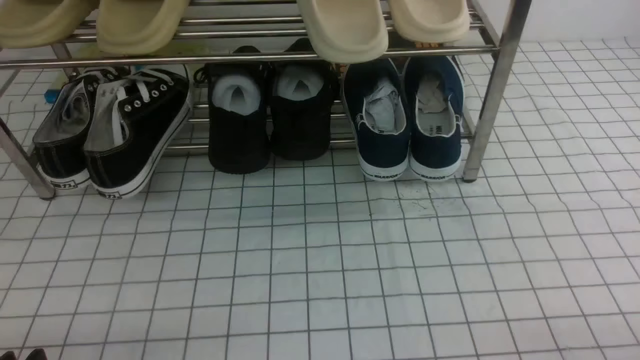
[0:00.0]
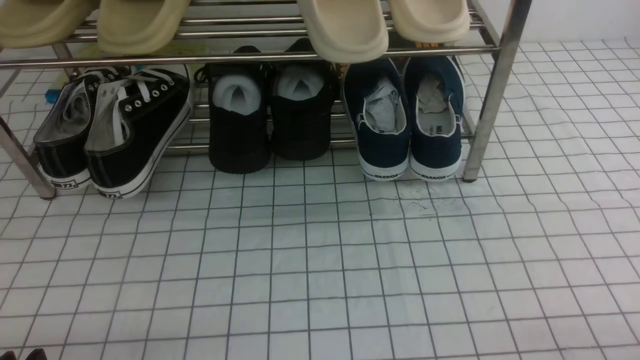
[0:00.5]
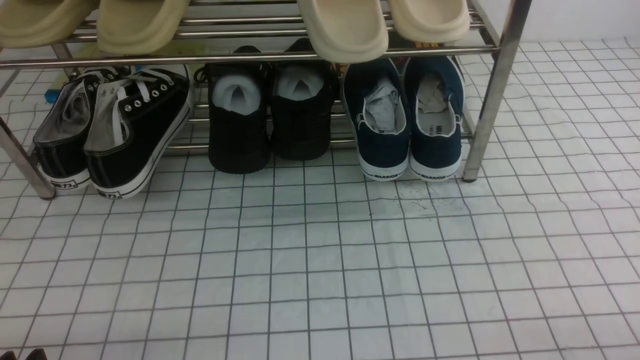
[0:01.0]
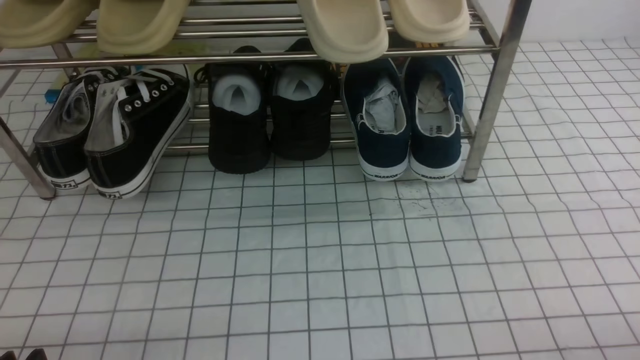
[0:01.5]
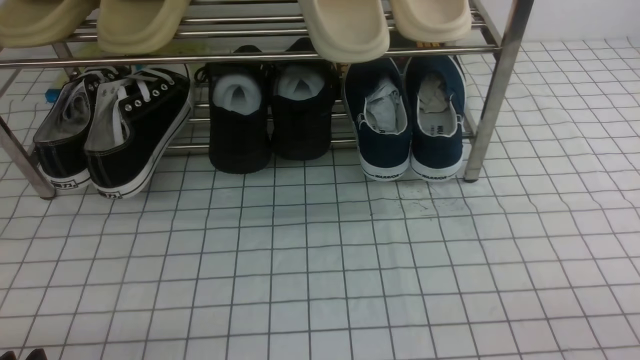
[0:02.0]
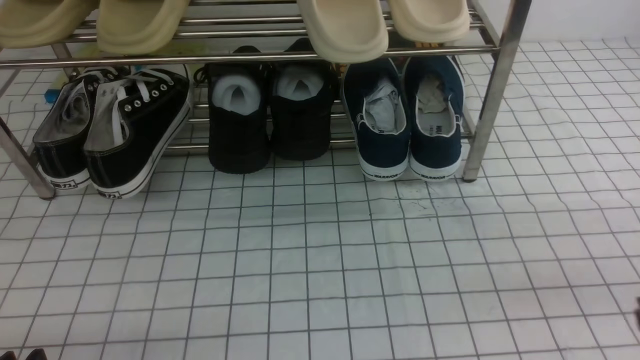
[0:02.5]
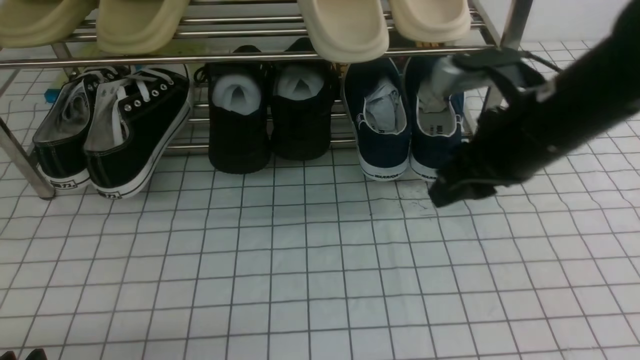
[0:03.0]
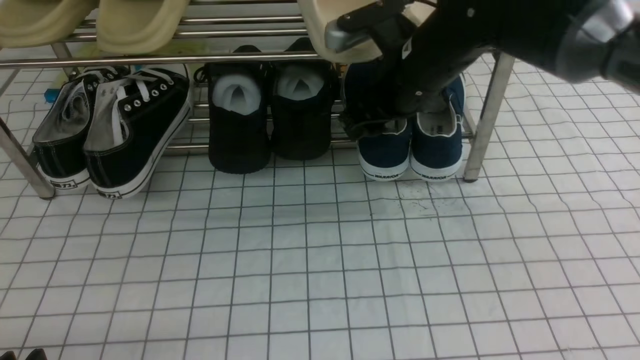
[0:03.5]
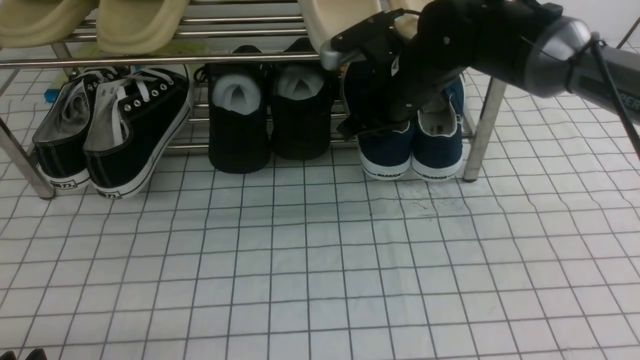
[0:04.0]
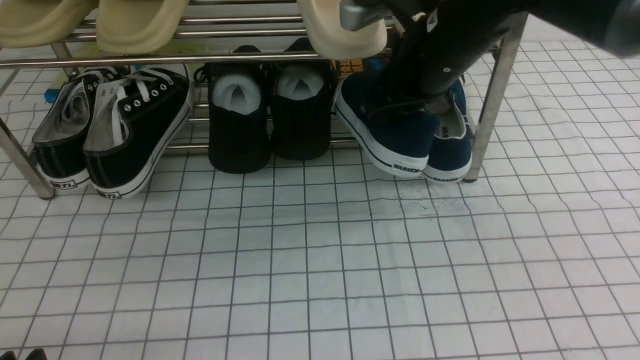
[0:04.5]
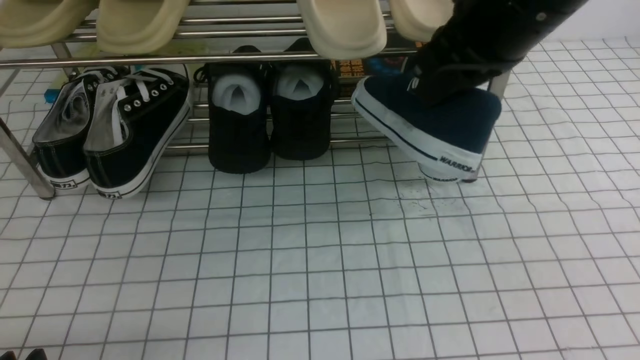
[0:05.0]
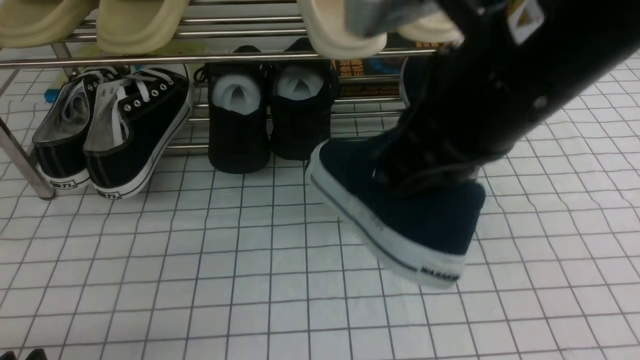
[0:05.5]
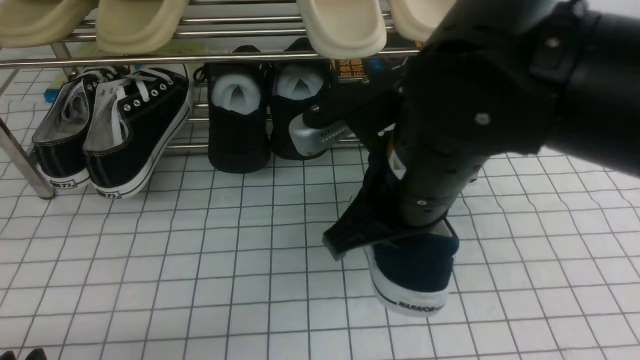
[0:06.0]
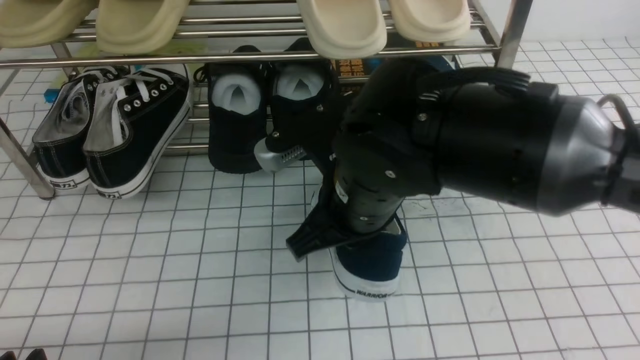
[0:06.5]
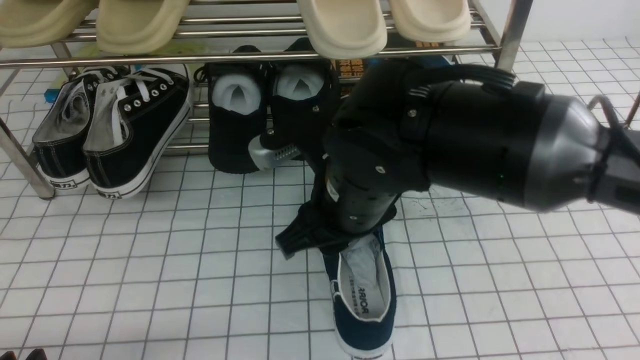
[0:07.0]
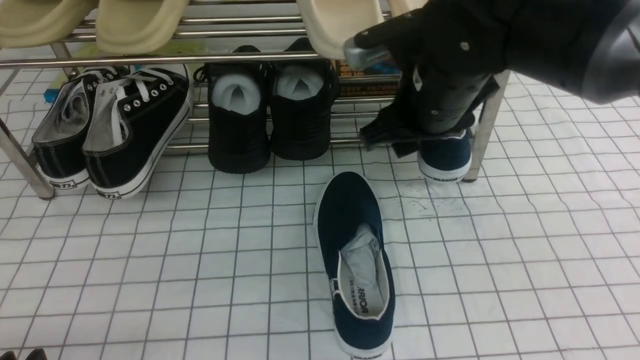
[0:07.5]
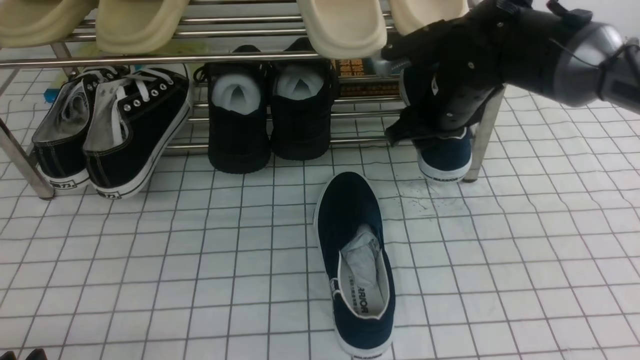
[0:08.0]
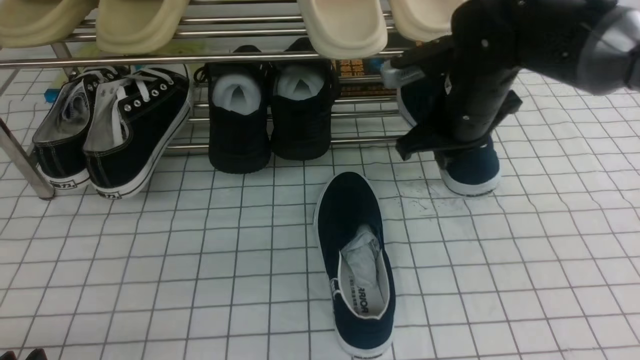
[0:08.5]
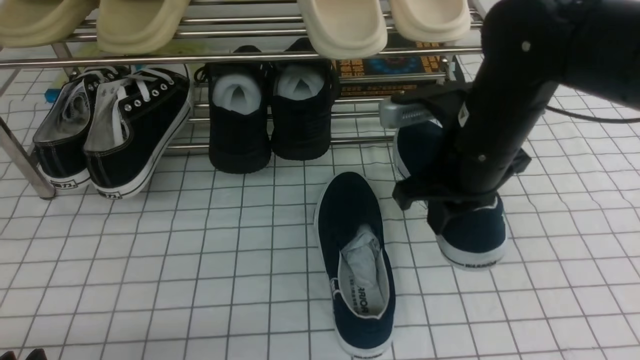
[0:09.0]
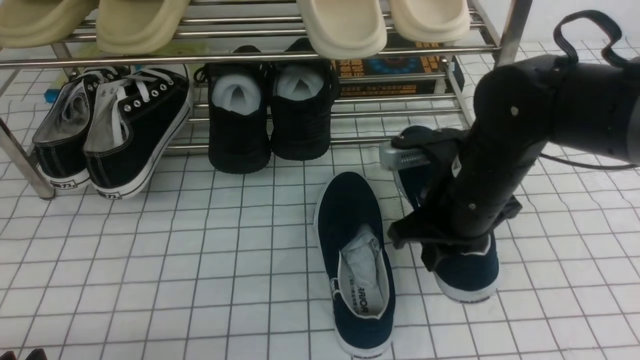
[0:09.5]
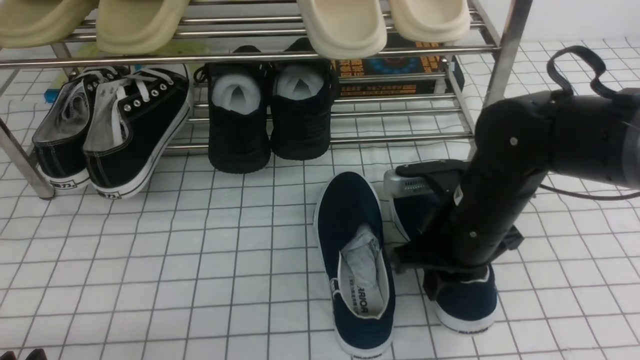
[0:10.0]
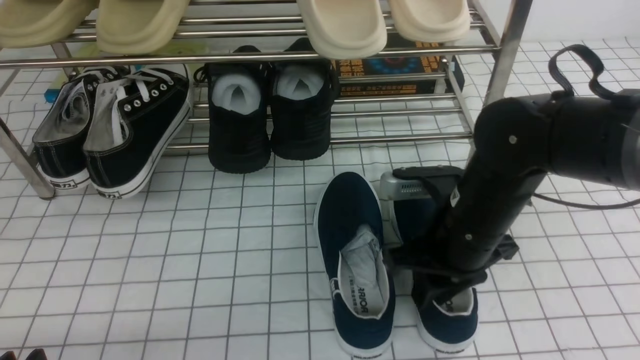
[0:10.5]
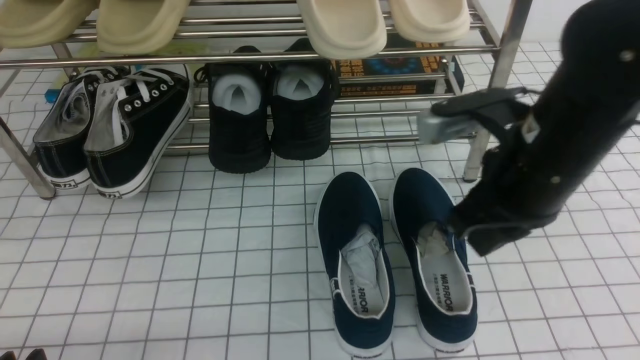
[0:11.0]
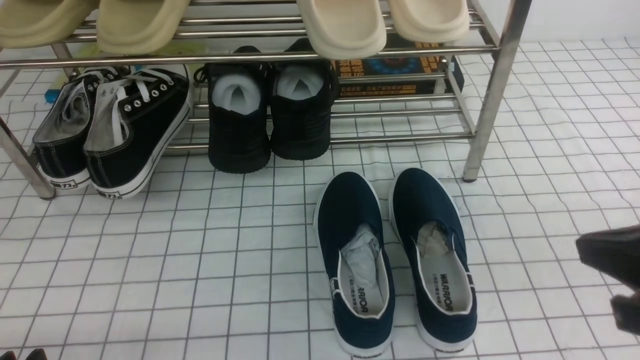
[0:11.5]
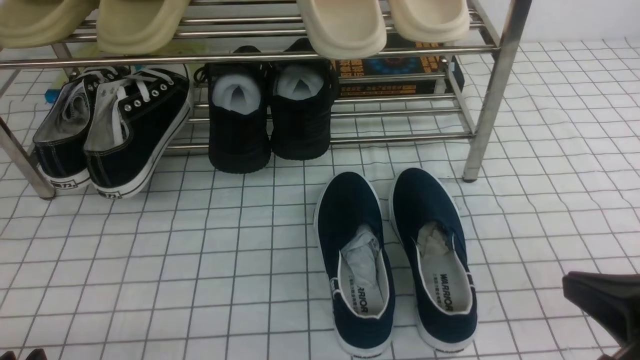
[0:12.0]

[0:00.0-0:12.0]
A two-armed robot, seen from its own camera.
Step, 0:00.0 to 0:03.5: use the right arm to clamp a shoe on the right side of the shoe rack.
Step, 0:04.0 to 0:07.0: use the right arm to take out the clamped shoe from the shoe rack and put it down.
Step, 0:07.5 to 0:08.0: use the right arm to clamp a shoe on the right side of the shoe rack.
Step, 0:08.5 to 0:10.5: use the right arm to take out the clamped shoe from the shoe rack and put it down.
0:02.0 to 0:04.0: The right gripper heads forward and to the left, covering approximately 40 cm, and closes, then reopens.
0:04.0 to 0:06.0: The right gripper shifts about 20 cm backward, and closes its fingers.
0:06.0 to 0:08.0: The right gripper heads forward, covering some 20 cm, and opens up.
0:08.0 to 0:10.0: The right gripper moves backward and downward, roughly 15 cm, and closes up.
0:10.0 to 0:12.0: The right gripper heads backward and to the right, covering roughly 20 cm, and opens, then closes once more.

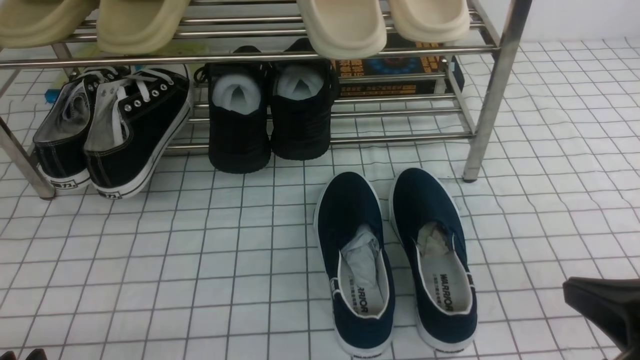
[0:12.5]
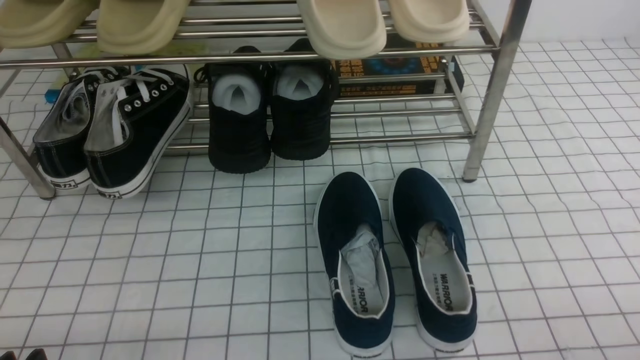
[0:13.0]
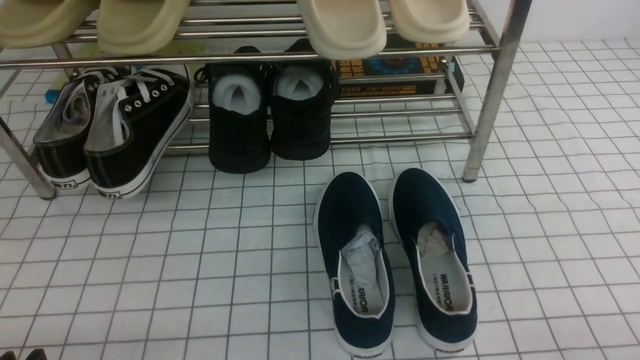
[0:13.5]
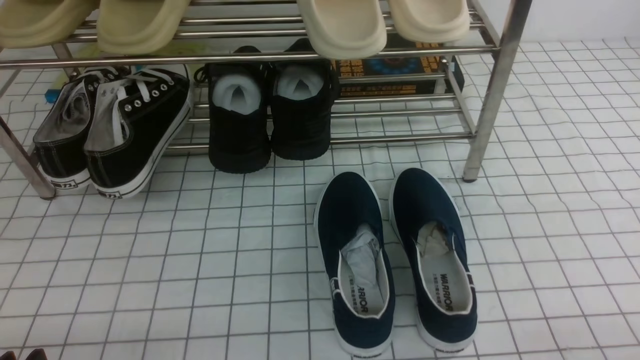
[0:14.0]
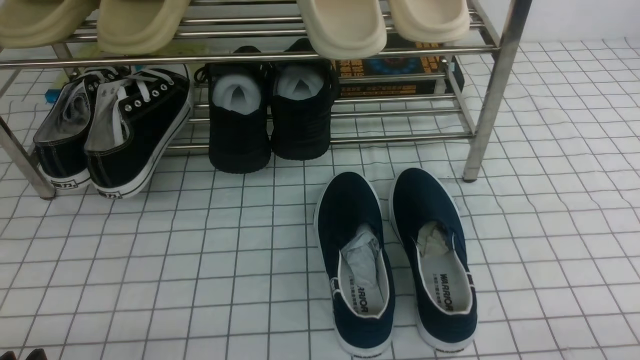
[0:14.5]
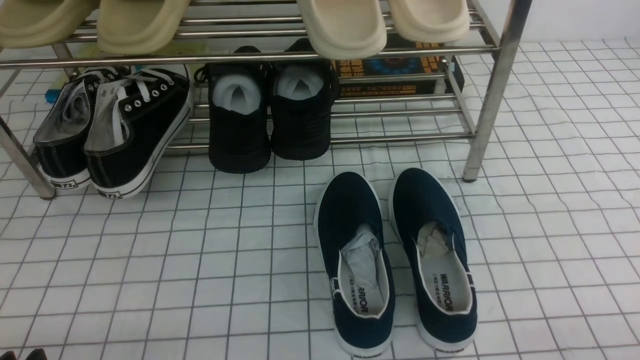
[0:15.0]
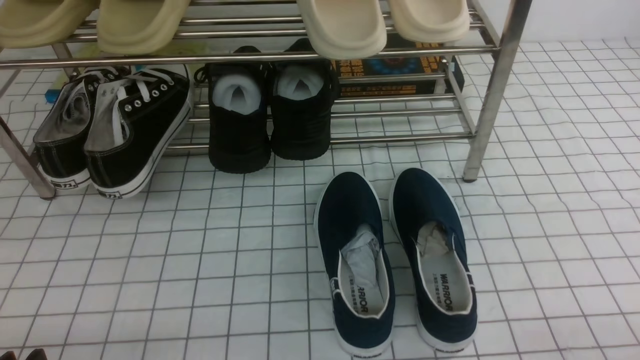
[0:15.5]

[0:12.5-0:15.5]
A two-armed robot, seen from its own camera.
0:12.5 to 0:14.0: The right gripper heads downward, to the right and backward, covering some 10 cm.
0:14.0 to 0:15.5: The two grippers keep their place.

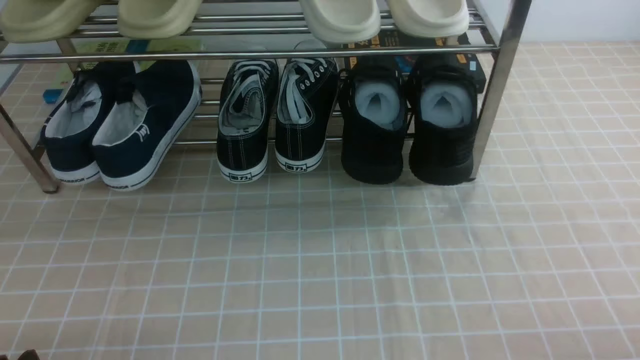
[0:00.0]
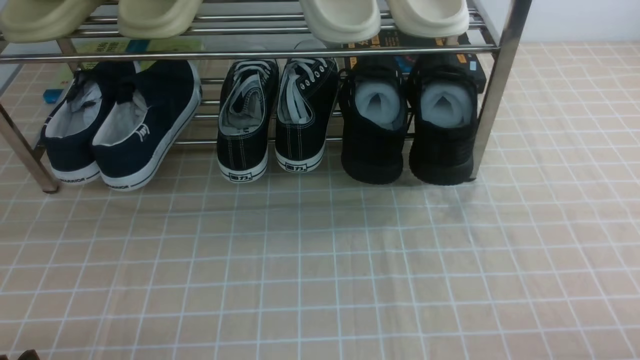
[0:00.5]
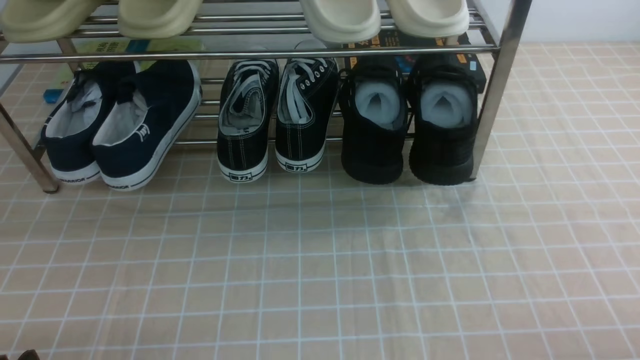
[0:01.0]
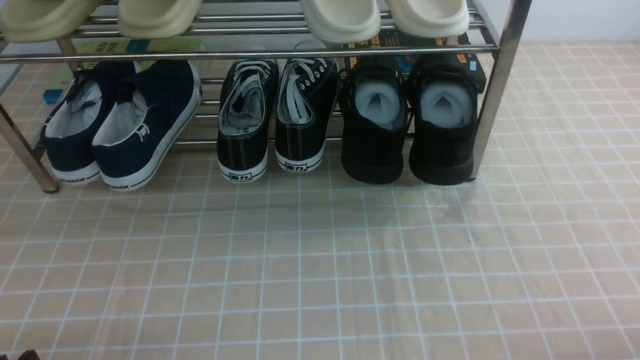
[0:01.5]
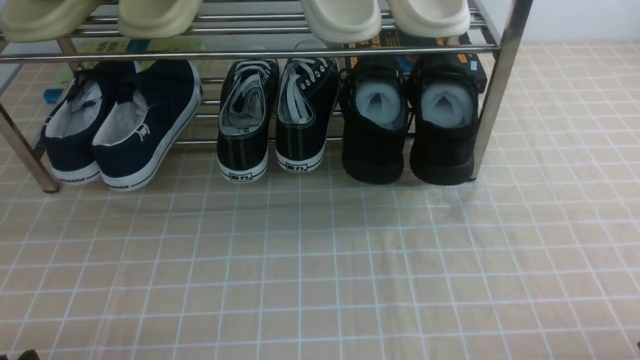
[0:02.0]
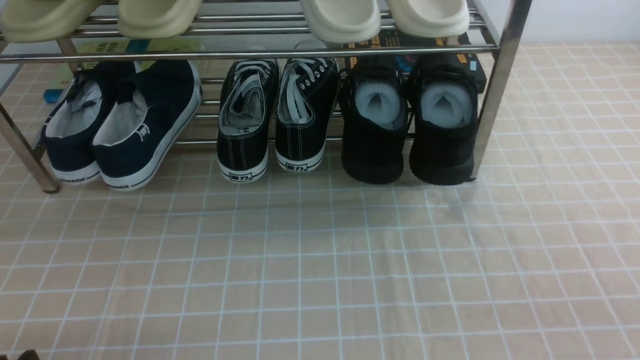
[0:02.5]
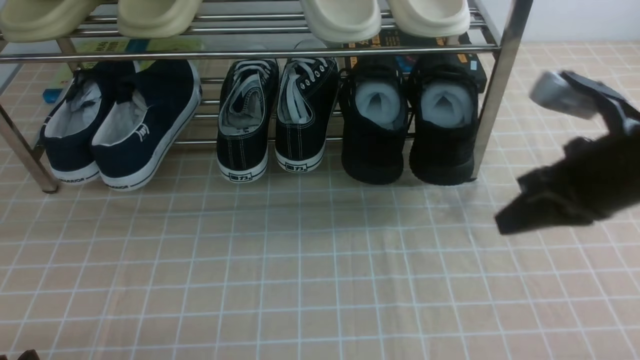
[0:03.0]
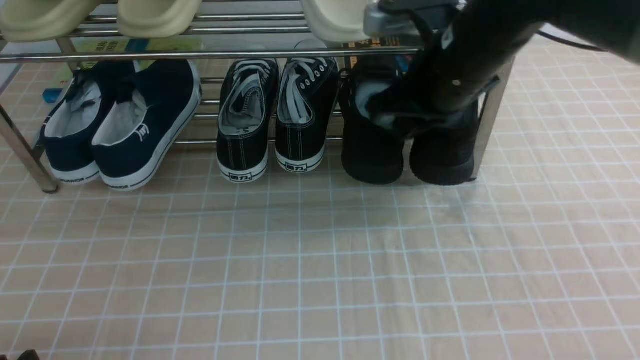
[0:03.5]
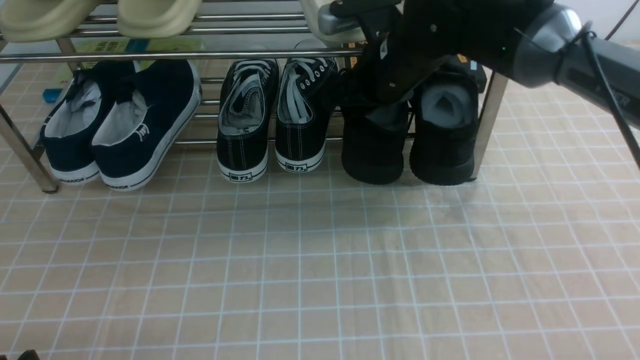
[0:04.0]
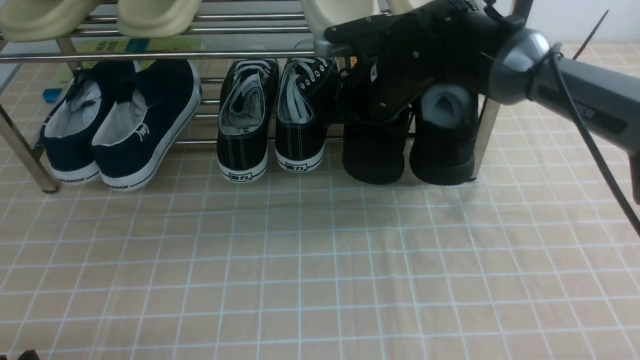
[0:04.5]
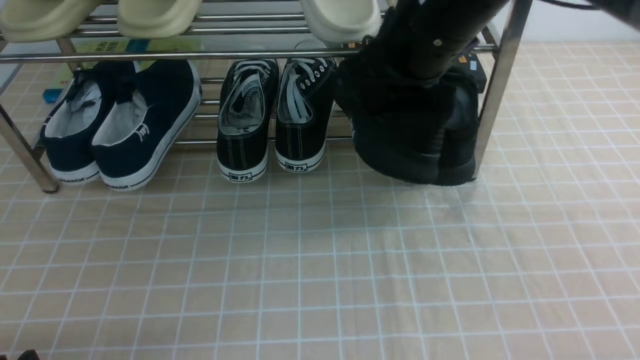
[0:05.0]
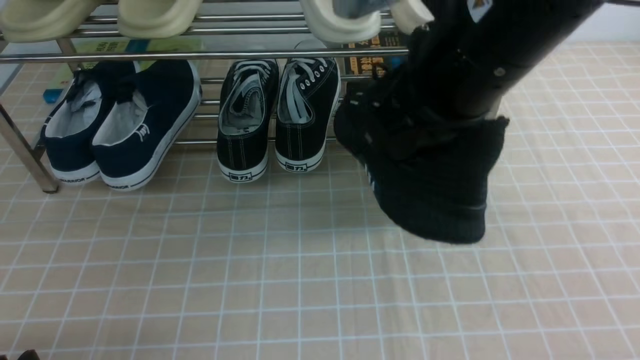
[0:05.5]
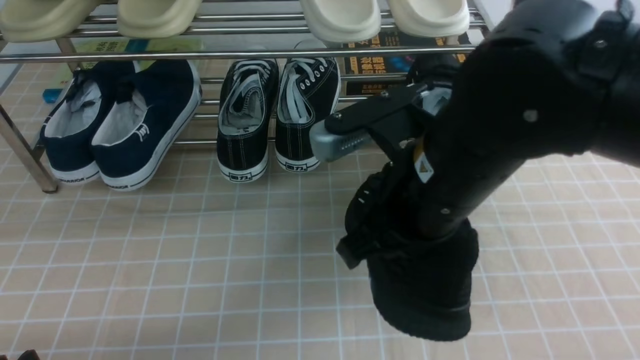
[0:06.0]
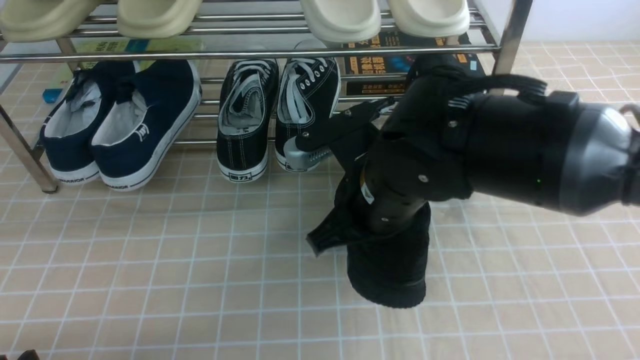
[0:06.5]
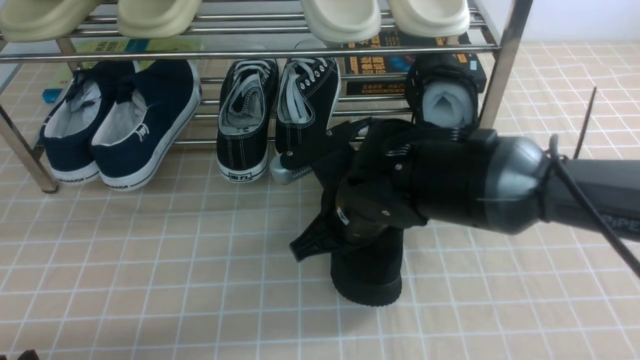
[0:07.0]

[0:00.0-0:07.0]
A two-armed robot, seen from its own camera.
Step, 0:00.0 to 0:04.0: use the right arm to clamp a shoe on the right side of the shoe rack.
0:02.0 to 0:03.5: The right gripper moves forward, to the left and upward, some 40 cm.
0:03.5 to 0:05.0: The right gripper moves upward, roughly 5 cm, and opens, then closes again.
0:05.0 to 0:07.0: The right gripper moves downward, some 15 cm.
